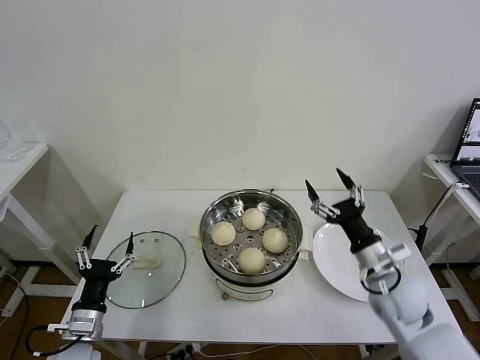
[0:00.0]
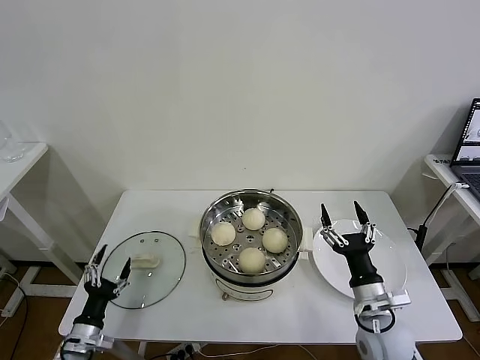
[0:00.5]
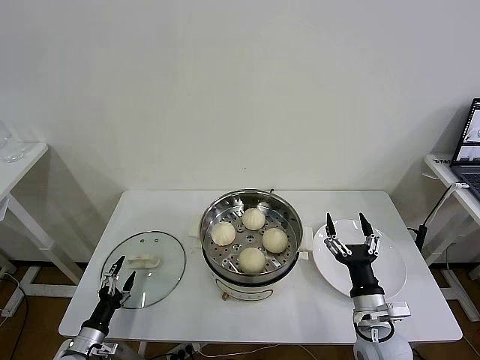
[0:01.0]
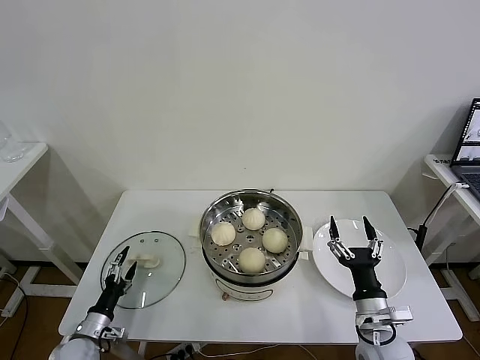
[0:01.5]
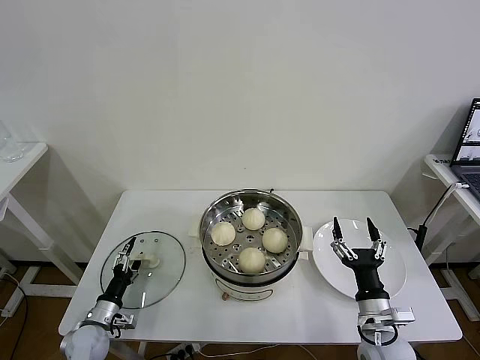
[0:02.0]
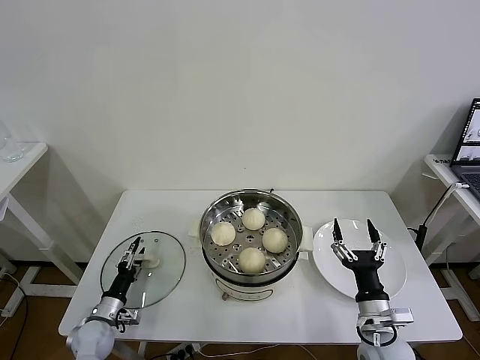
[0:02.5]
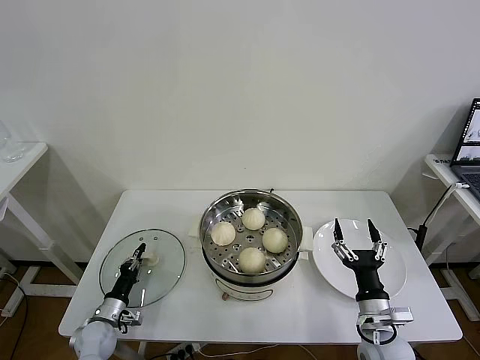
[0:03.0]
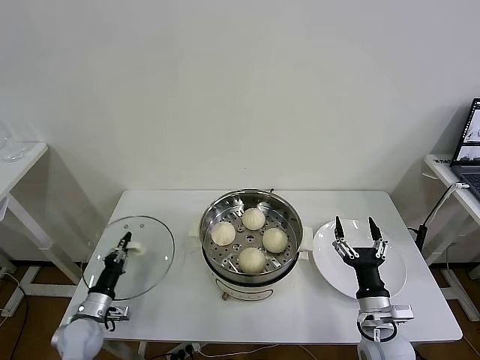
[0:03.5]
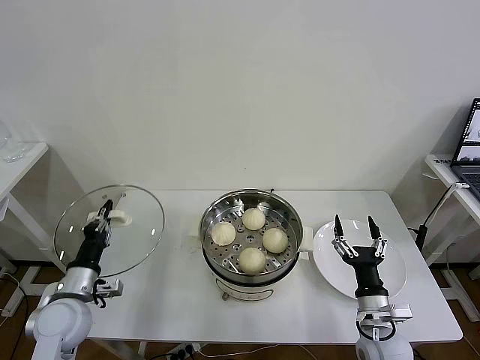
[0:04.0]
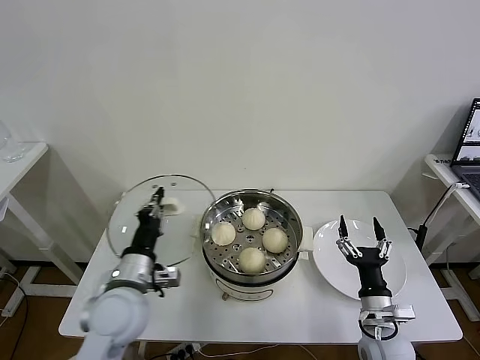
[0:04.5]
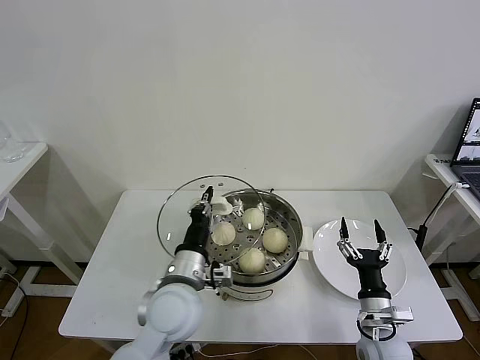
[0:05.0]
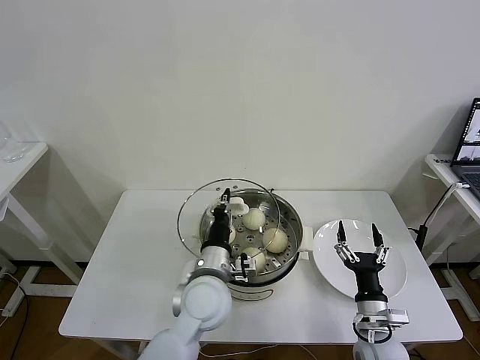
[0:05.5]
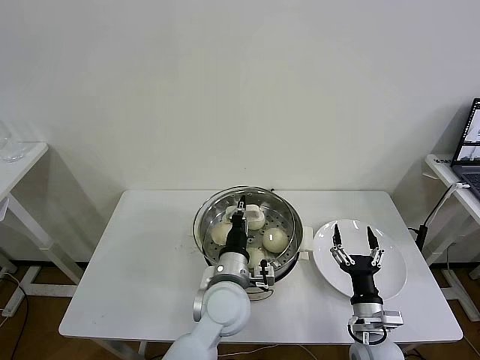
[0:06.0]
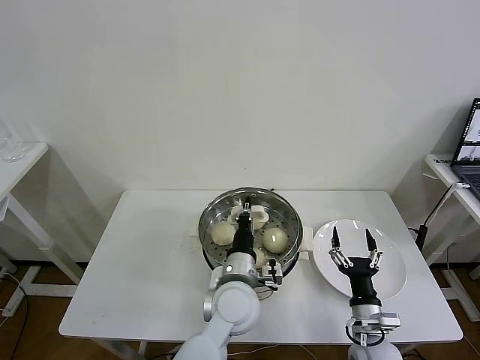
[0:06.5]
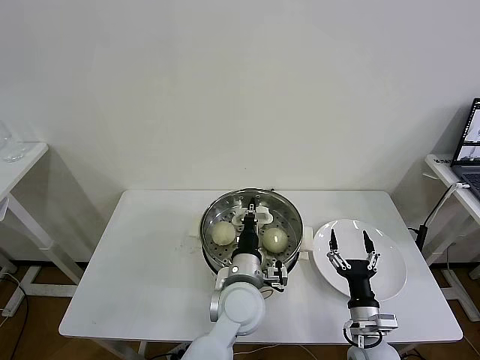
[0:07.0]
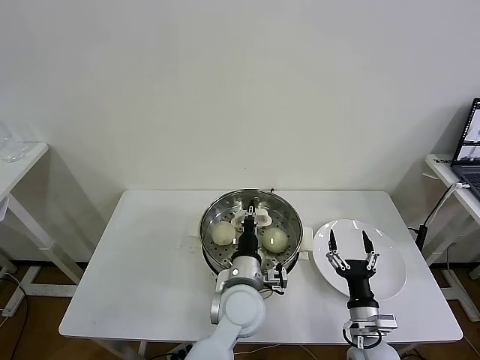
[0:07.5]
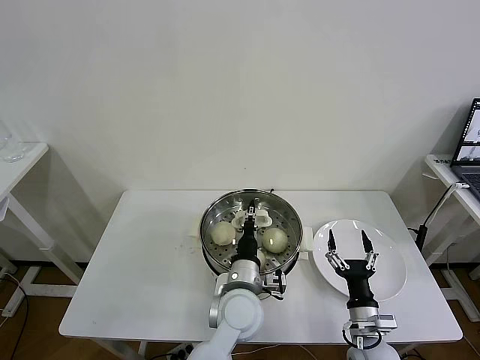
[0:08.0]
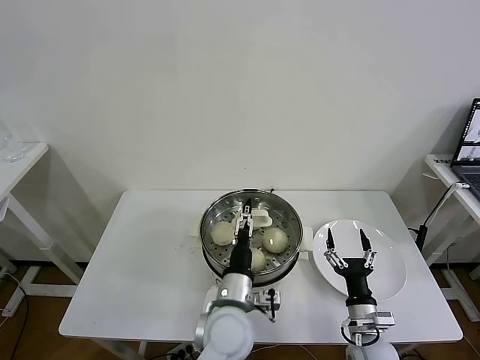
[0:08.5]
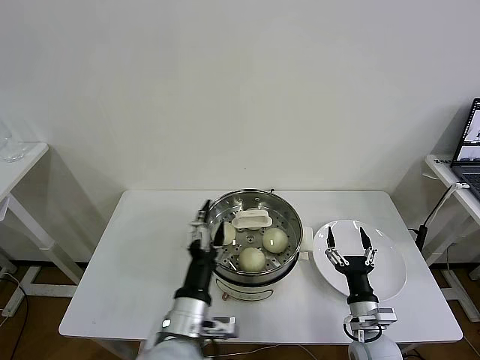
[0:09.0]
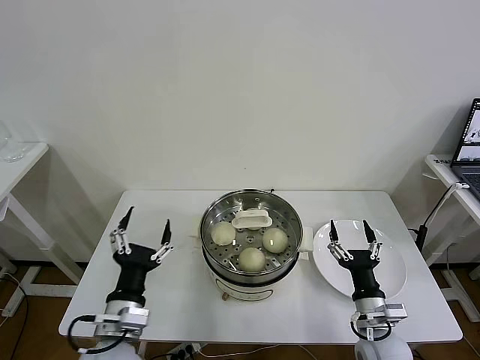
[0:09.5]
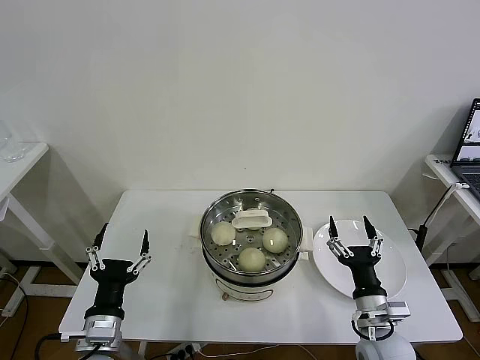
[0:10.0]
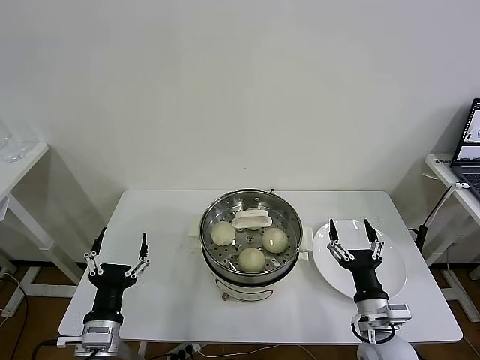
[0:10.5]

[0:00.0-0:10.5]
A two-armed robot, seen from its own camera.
Task of the whole recording: take steamed baozi put them in steamer then cover it.
Step, 0:00.0 to 0:03.0: Grasp the pot lid with left gripper.
Step, 0:03.5 to 0:08.5: Place the pot lid on the steamer with left gripper.
0:00.0 to 0:02.0: The left gripper shifts approximately 15 cm downward, forward and to the left. The right gripper is displaced downward and backward by some 10 cm.
0:02.0 to 0:04.0: The left gripper shifts some 15 cm upward, and closes its fingers.
0:04.0 to 0:06.5: The left gripper travels to the right by roughly 35 cm.
0:06.5 to 0:08.5: The left gripper opens.
0:08.5 to 0:10.5: The right gripper is displaced upward by roughly 5 cm. Meanwhile the left gripper moves to the left and backward, some 25 cm.
